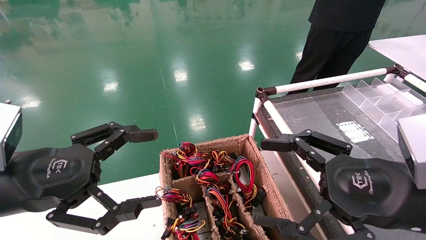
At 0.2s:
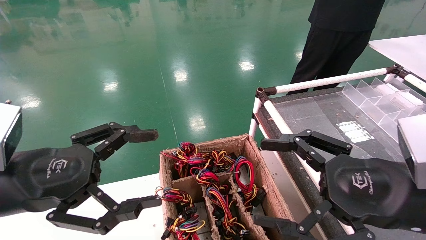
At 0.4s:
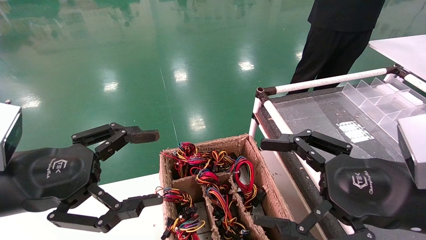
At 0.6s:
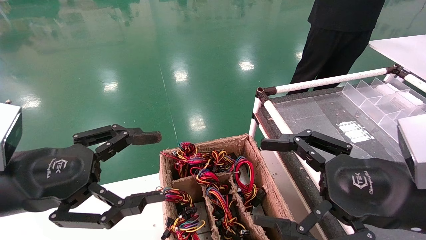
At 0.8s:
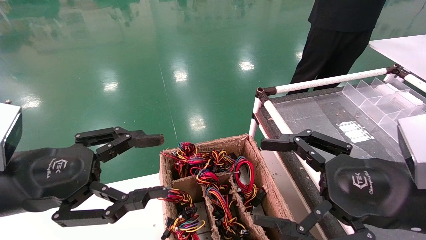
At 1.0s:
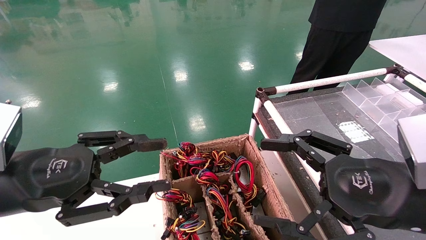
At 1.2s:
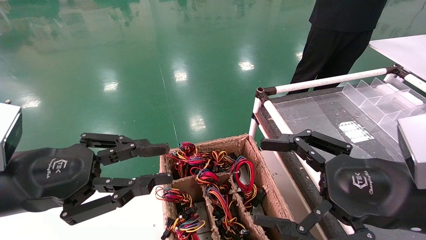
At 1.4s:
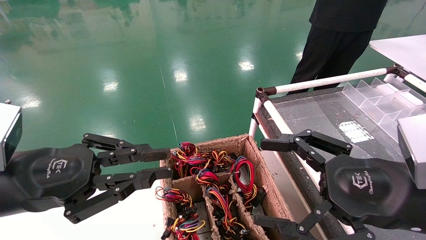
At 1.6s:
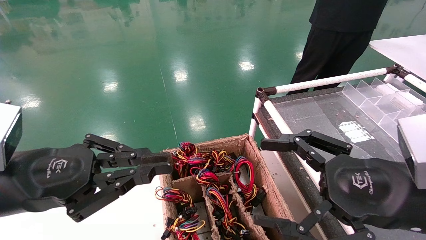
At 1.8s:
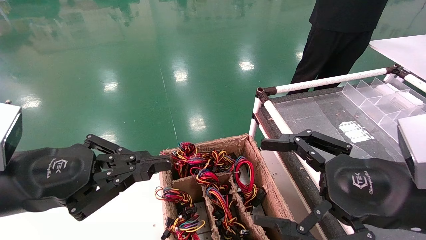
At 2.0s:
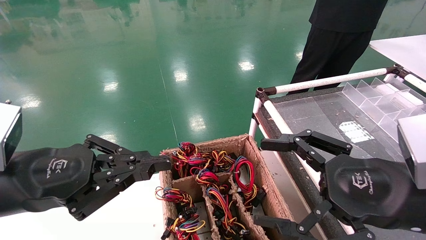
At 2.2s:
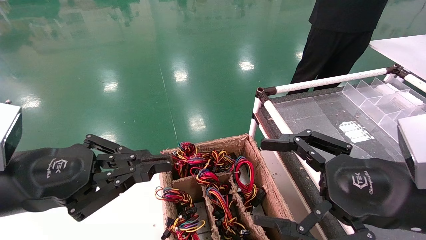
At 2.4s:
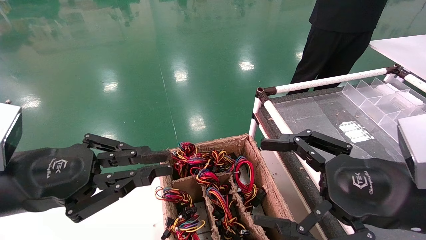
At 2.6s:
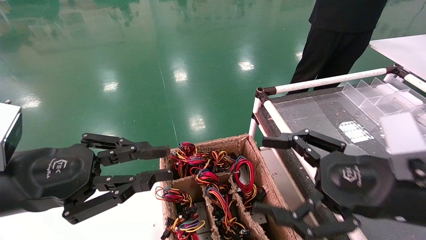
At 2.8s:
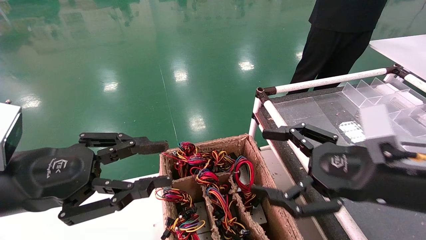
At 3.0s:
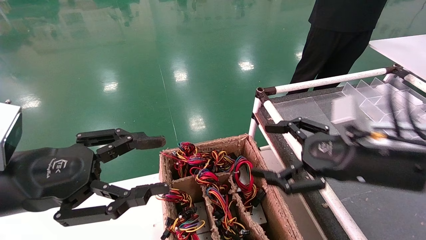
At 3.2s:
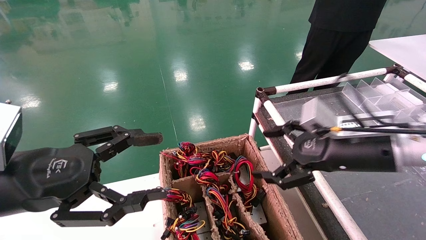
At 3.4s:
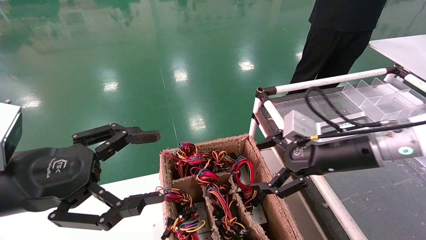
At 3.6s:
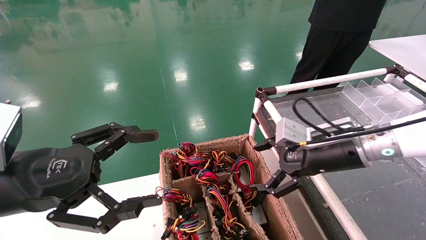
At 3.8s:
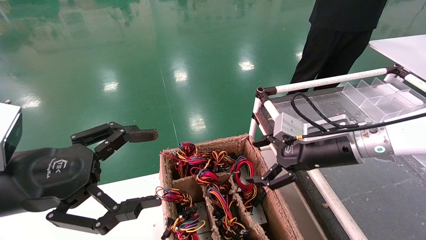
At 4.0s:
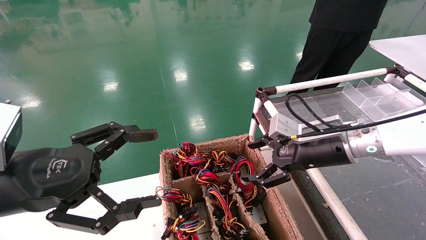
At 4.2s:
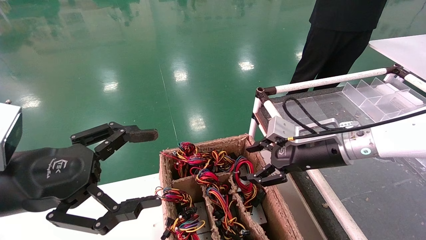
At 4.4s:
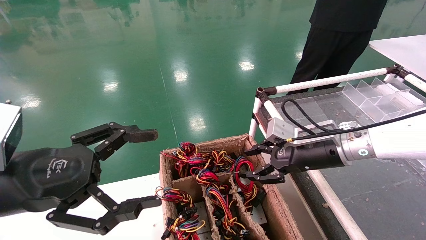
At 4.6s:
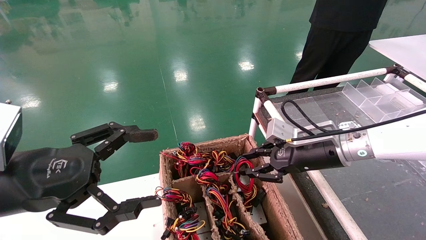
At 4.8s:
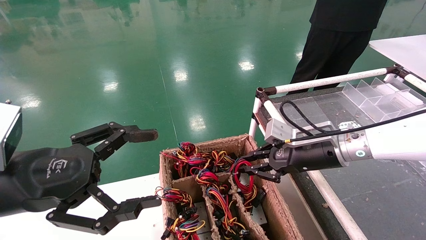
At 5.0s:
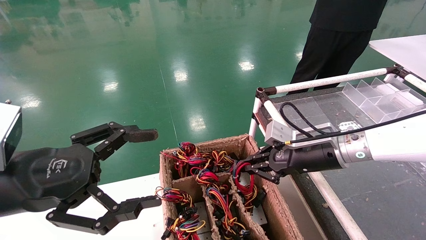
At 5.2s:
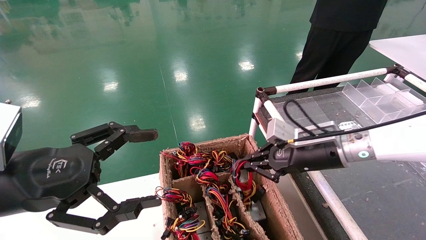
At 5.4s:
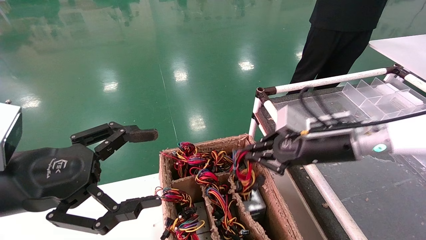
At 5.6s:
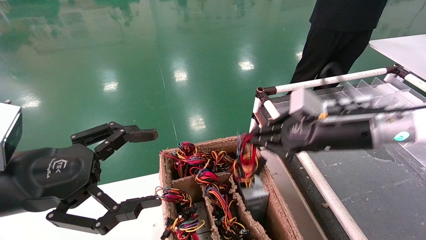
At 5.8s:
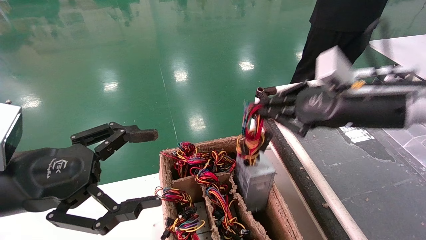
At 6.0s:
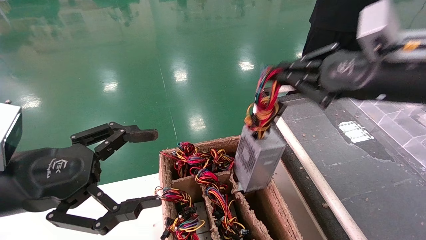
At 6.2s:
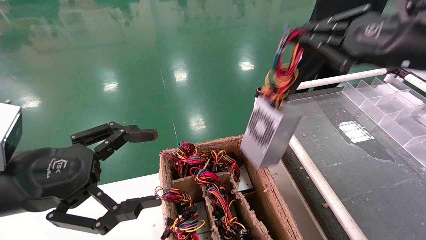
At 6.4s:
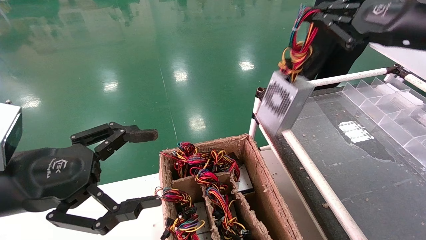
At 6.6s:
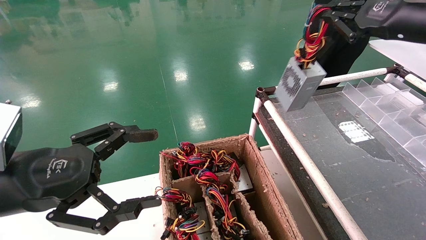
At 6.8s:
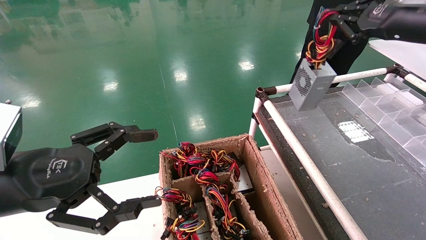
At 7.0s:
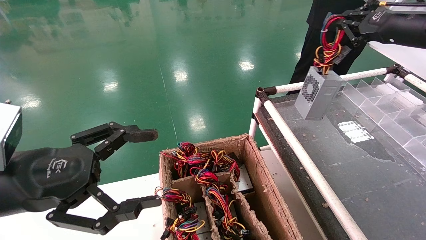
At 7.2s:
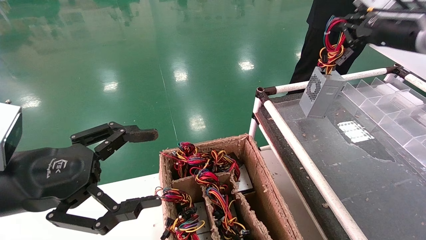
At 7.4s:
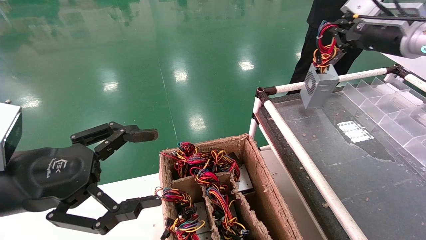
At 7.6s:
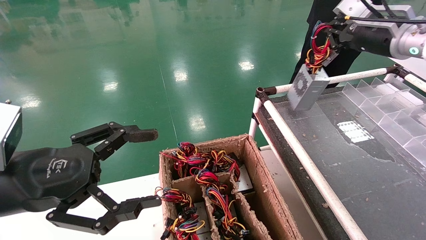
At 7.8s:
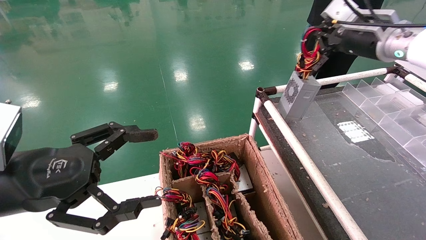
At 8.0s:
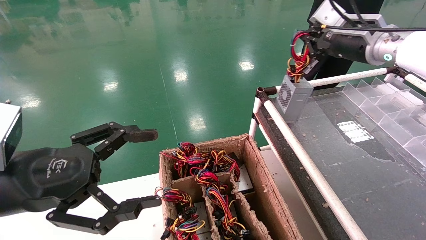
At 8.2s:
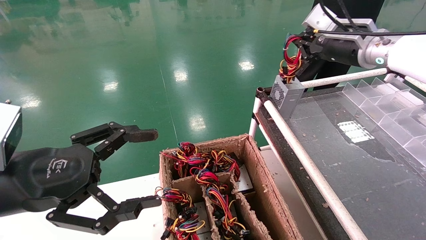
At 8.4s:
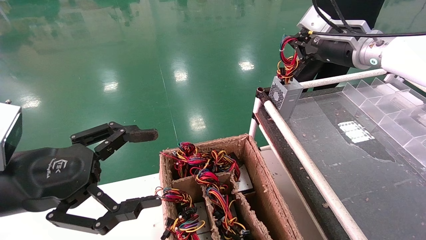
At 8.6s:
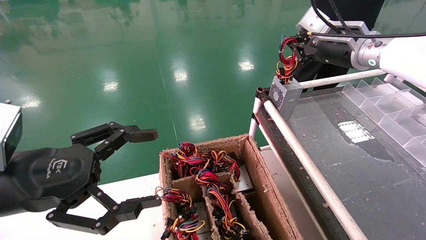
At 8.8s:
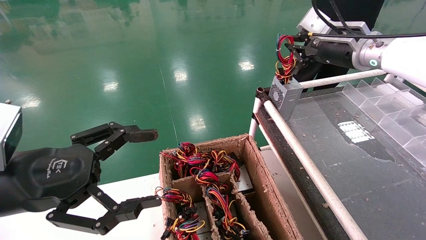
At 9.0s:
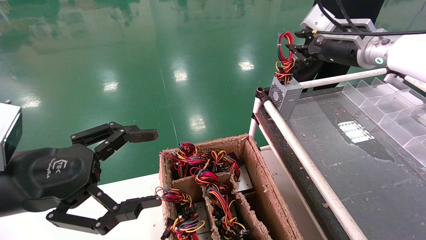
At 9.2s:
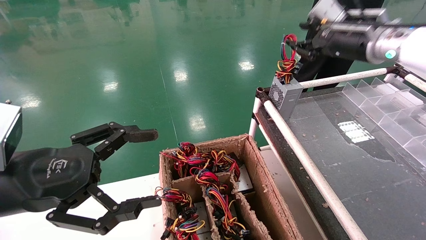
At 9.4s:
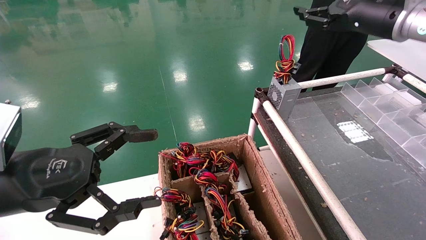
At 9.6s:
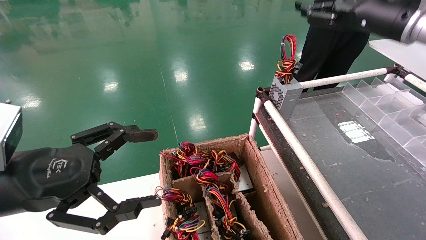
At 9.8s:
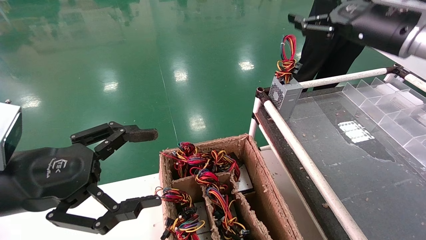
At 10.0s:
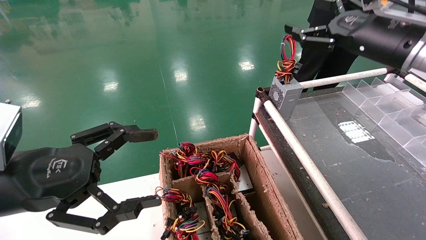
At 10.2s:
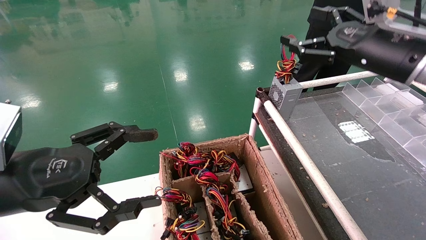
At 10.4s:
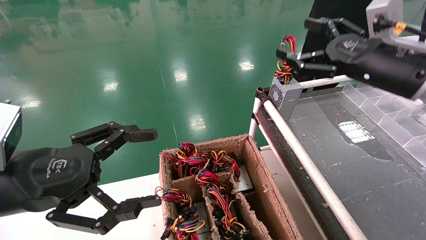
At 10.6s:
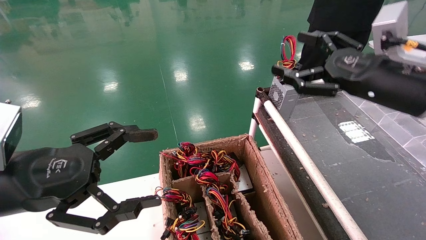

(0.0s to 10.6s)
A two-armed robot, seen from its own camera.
Step, 1.8s - 5.2s: Grab and lift the power supply from the large box.
Step, 5.4s - 8.8s: Place the power supply on the operating table.
0.0s - 1.6s: The left gripper closes.
1.6s - 3.0s: The right gripper moves forward, roughly 10 cm.
3.0s - 4.6s: The left gripper opens up, while the right gripper travels forward by approximately 10 cm, and closes its fingers.
4.6s - 6.0s: The right gripper heads upward, backward and to the right, covering some 20 cm, and closes up.
6.0s - 7.6s: The right gripper goes some 15 cm forward.
7.6s - 9.0s: The grippers move only a little.
9.0s - 10.6s: The right gripper travels backward and downward by approximately 15 cm, and opens its fingers.
